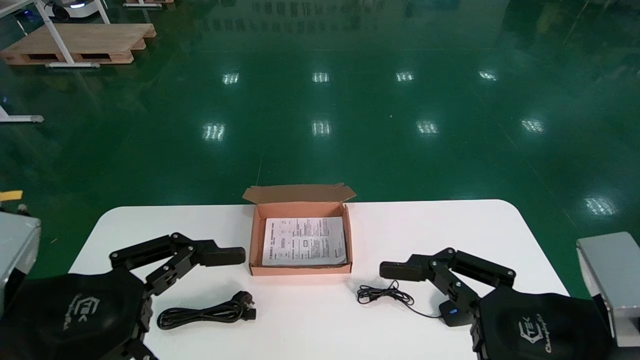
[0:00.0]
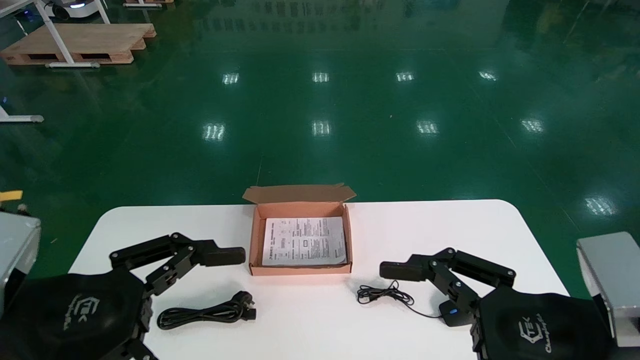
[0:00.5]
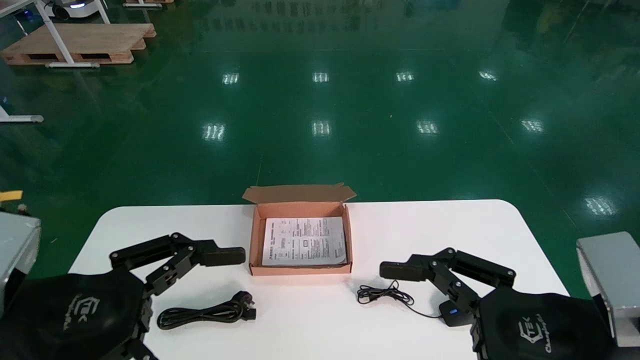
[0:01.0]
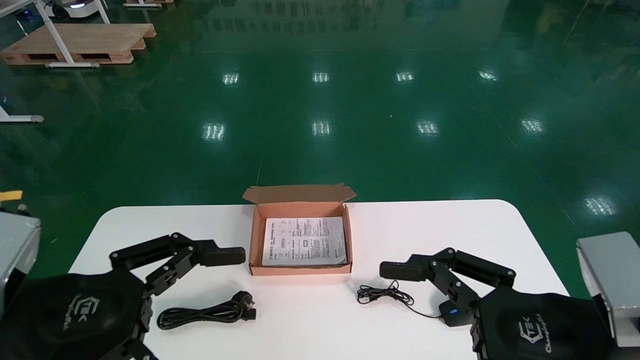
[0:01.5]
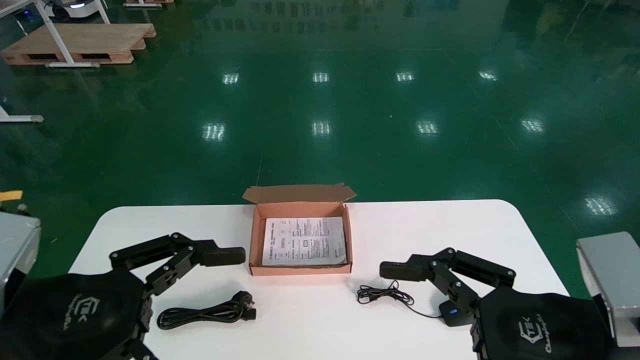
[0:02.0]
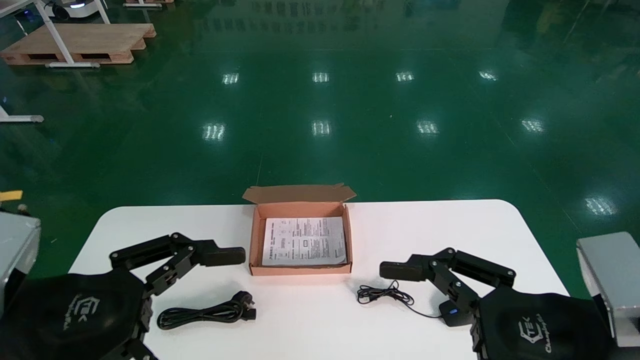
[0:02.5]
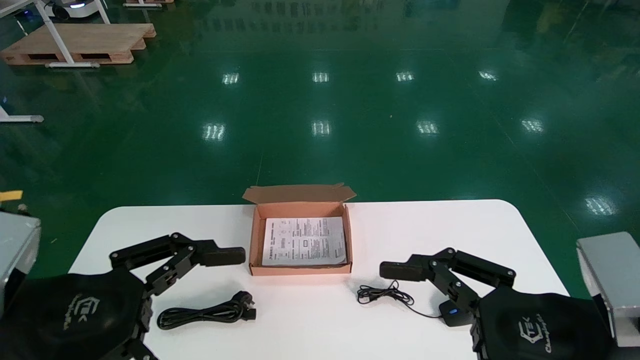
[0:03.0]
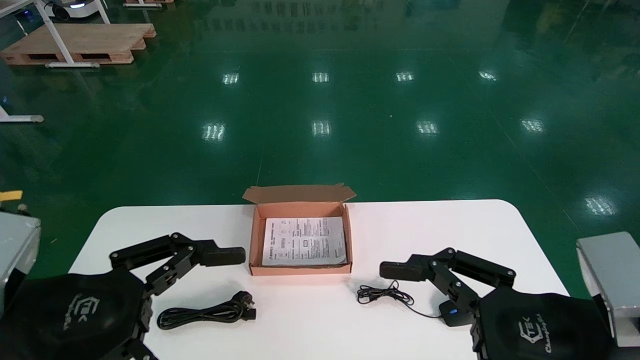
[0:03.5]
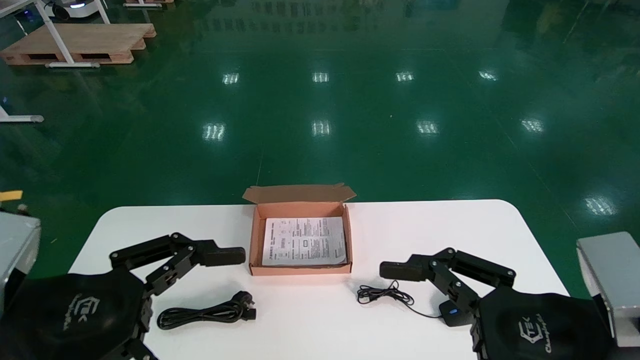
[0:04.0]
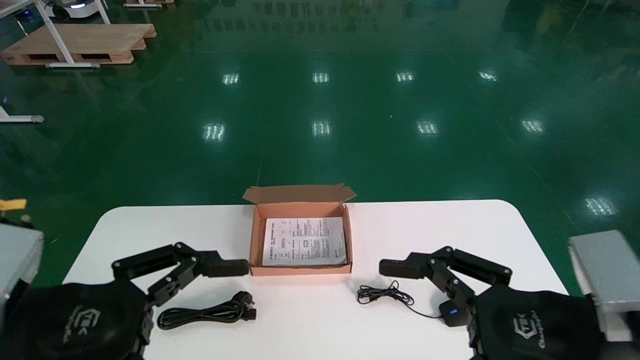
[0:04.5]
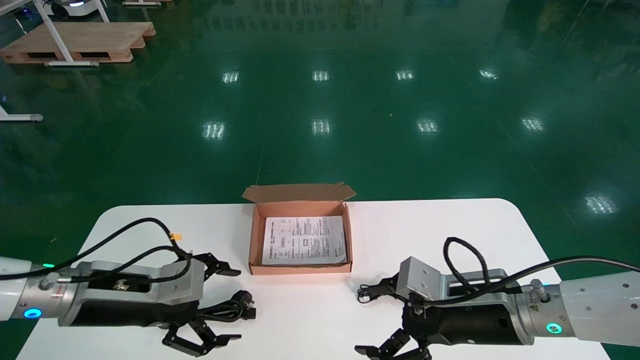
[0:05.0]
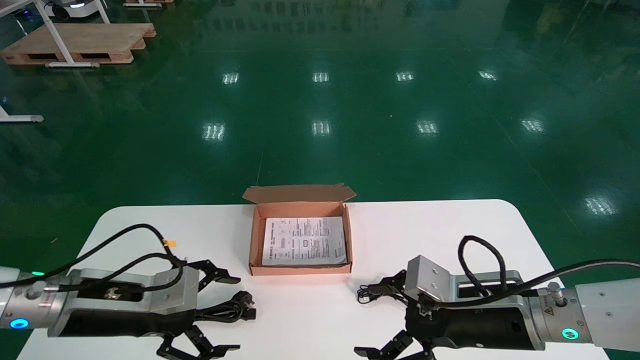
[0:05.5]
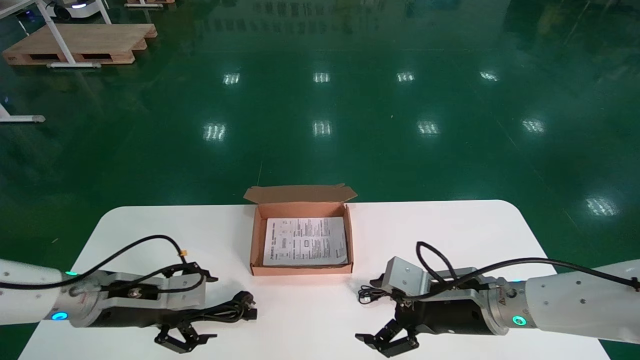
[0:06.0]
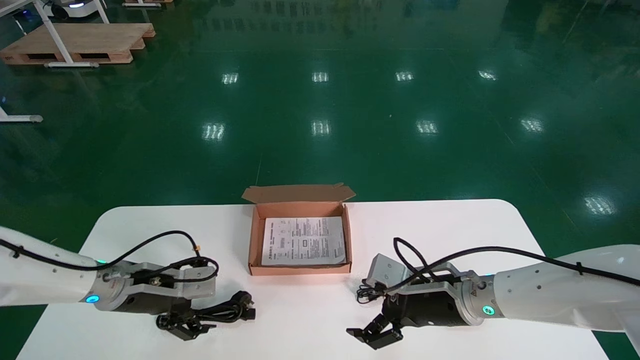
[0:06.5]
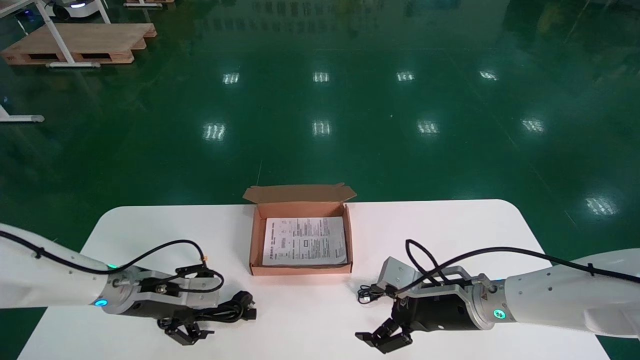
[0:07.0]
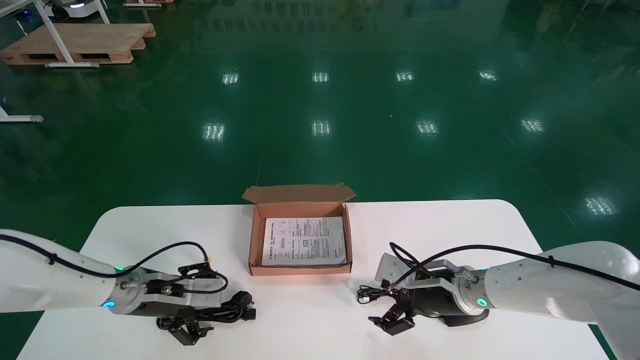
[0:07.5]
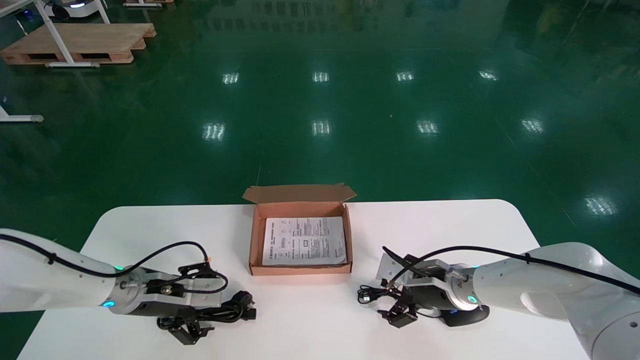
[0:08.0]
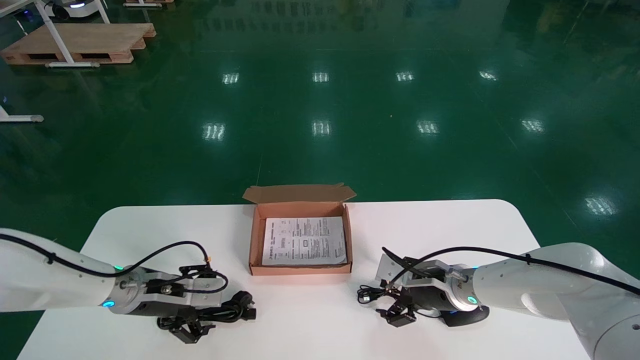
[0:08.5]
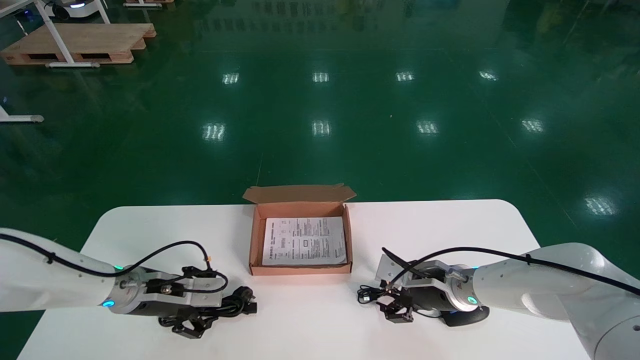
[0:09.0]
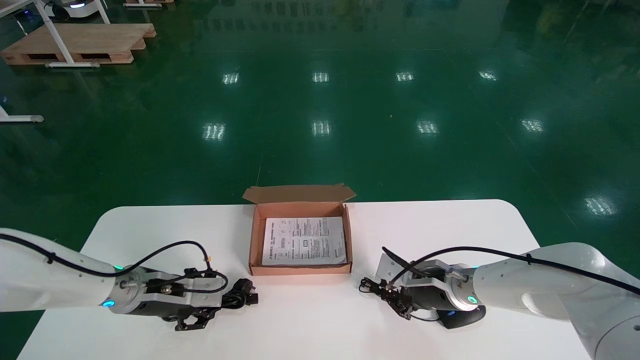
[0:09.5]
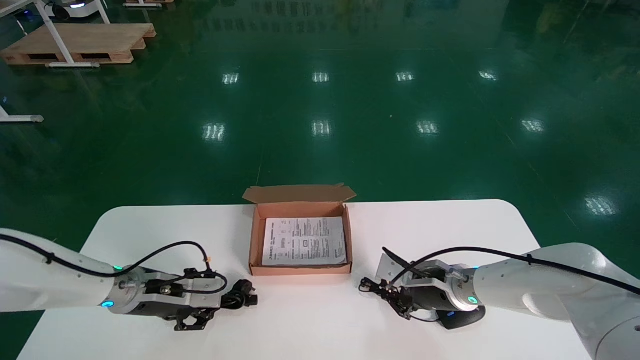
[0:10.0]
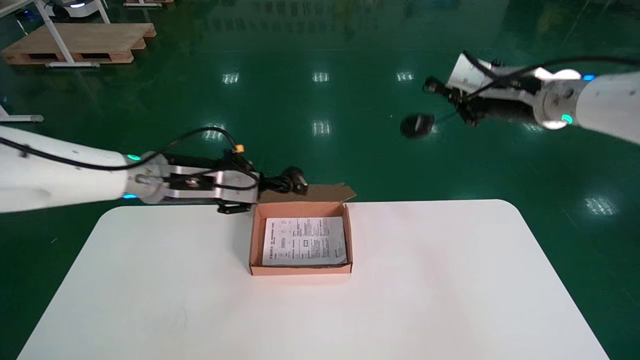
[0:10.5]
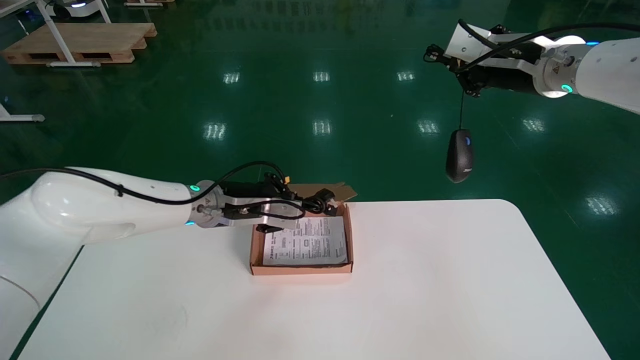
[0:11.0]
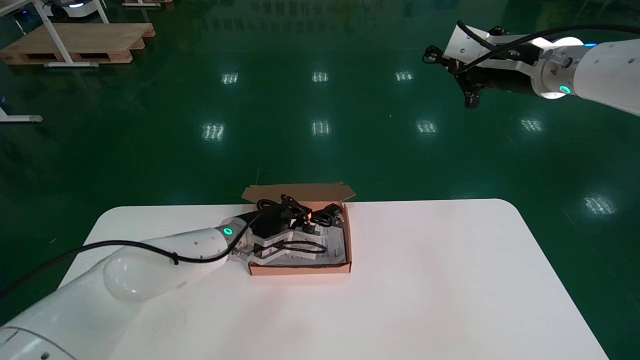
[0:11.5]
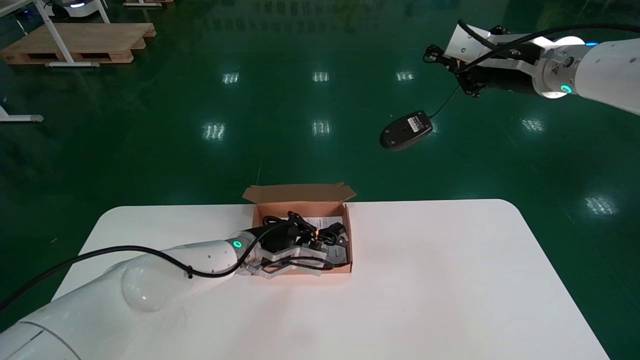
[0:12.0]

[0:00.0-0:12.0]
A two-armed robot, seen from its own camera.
Step, 0:05.0 to 0:09.0: Simultaneously pick up the mouse and power cord from the accessory packaging area.
0:00.0 to 0:04.0: Neither gripper changes place.
0:04.0 to 0:06.0: Both grippers travel together forward and downward, approximately 20 cm.
0:06.0 to 0:08.0: Both grippers move forward, about 10 cm.
0:08.0 to 0:10.0: The right gripper closes its fingers. Meanwhile the left gripper goes about 5 cm upward, and closes.
0:10.0 to 0:12.0: The right gripper goes some 30 cm upward. The left gripper moves to the right, approximately 20 cm.

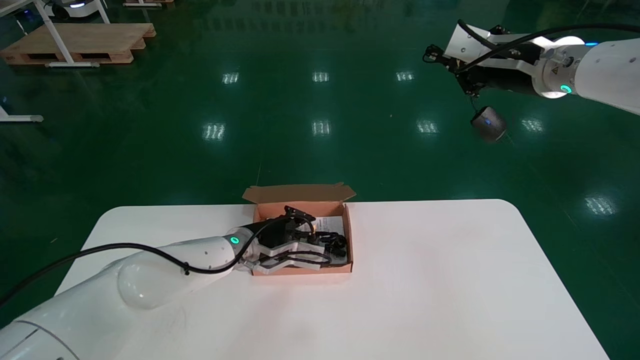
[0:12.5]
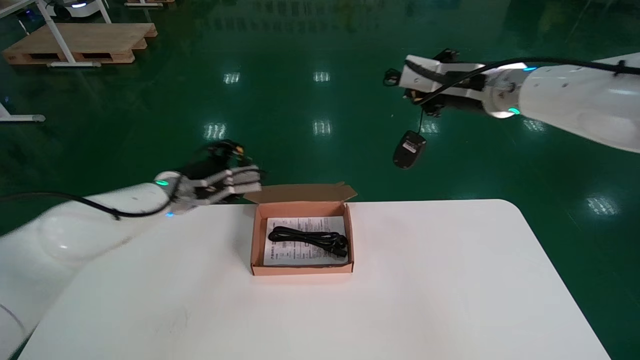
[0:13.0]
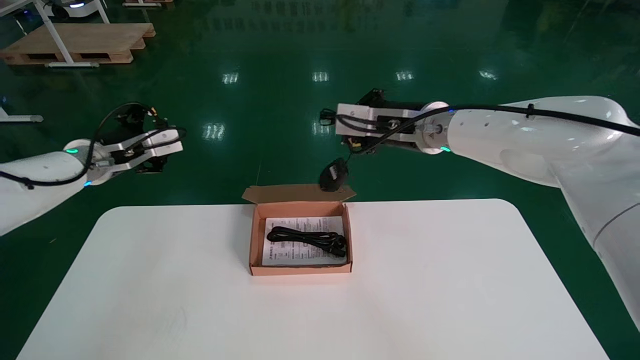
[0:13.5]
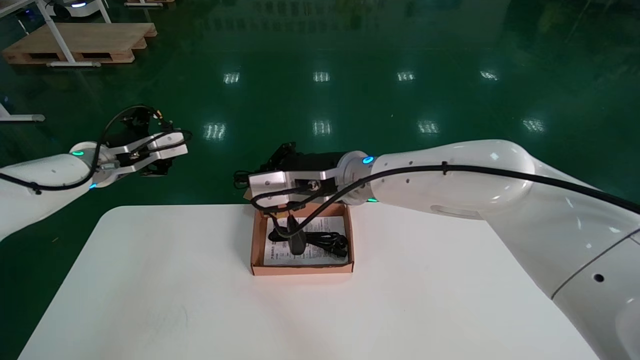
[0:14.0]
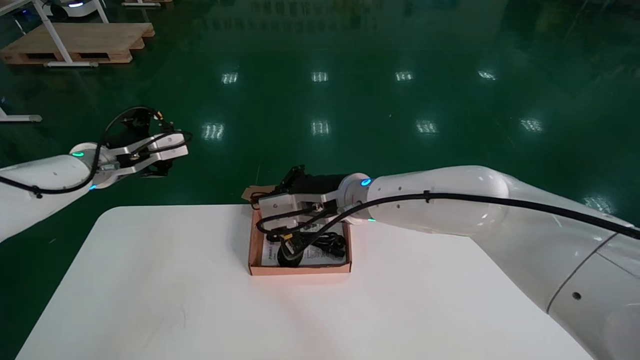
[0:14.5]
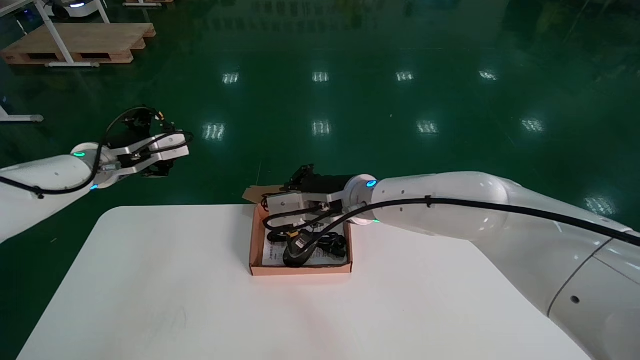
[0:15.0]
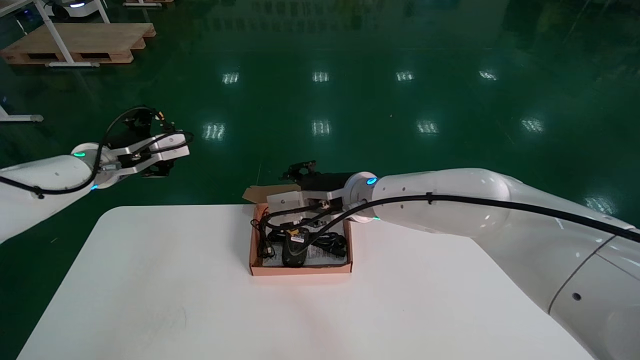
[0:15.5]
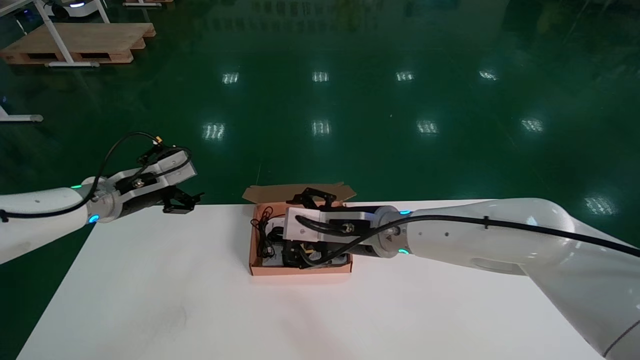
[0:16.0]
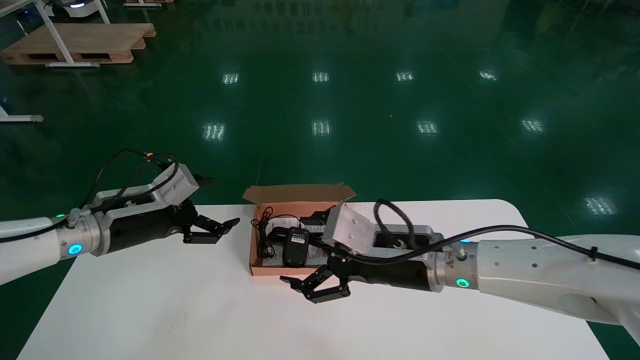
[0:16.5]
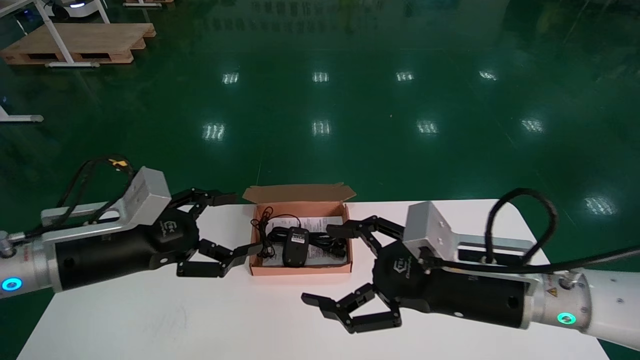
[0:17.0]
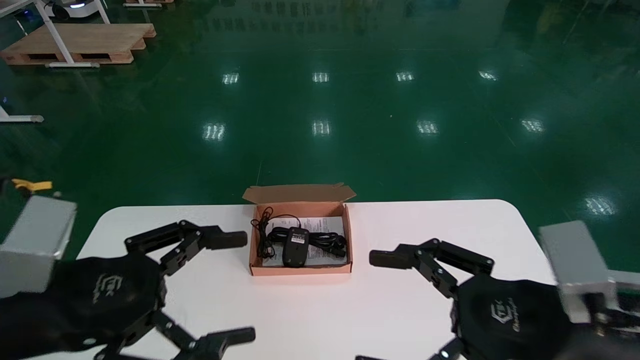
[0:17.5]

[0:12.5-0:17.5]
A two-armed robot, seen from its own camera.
Step, 0:12.5 to 0:15.0: Place the mouse and power cord into the box.
0:12.5 to 0:15.0: The right gripper moves to the left and downward, about 30 cm. The left gripper travels to the left and upward by roughly 25 cm, and opens.
0:15.0 to 0:17.5: The left gripper heads backward, covering some 25 cm. The right gripper moves backward and to the right, roughly 30 cm, and opens.
